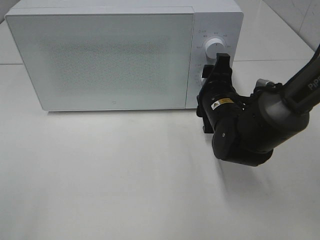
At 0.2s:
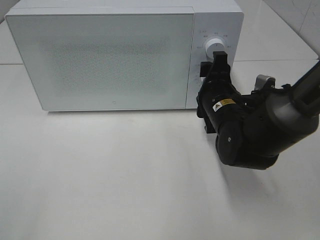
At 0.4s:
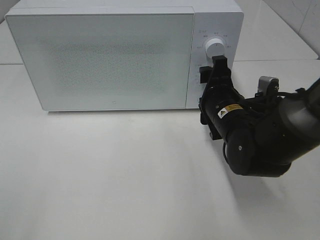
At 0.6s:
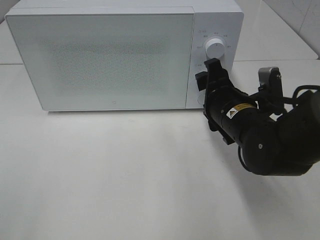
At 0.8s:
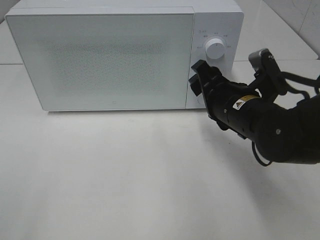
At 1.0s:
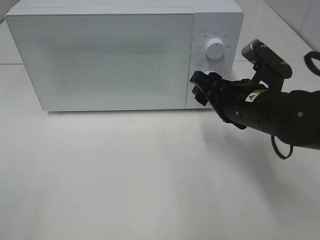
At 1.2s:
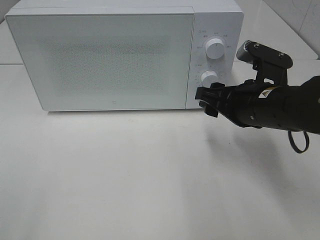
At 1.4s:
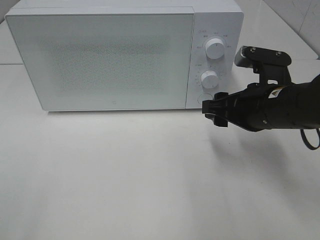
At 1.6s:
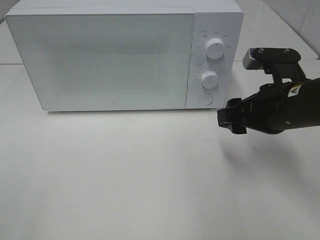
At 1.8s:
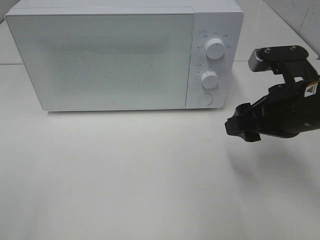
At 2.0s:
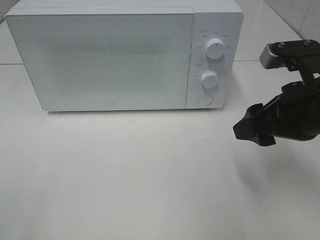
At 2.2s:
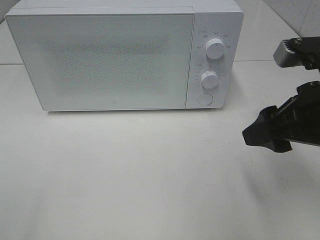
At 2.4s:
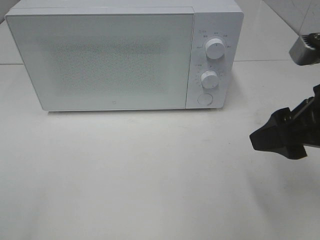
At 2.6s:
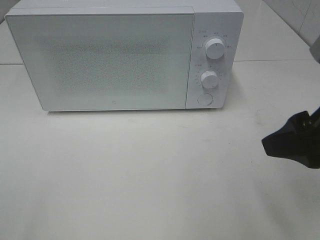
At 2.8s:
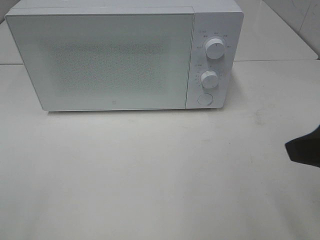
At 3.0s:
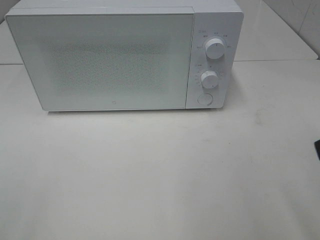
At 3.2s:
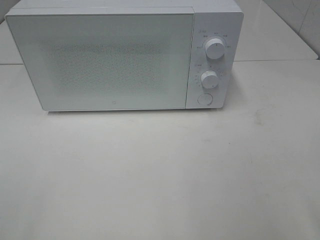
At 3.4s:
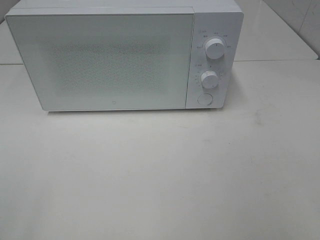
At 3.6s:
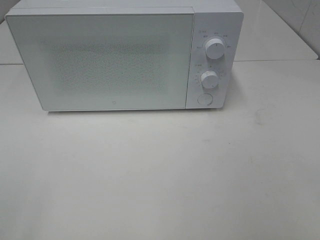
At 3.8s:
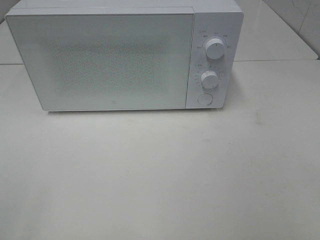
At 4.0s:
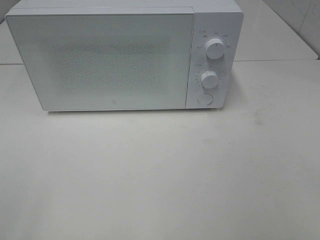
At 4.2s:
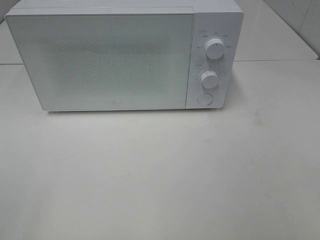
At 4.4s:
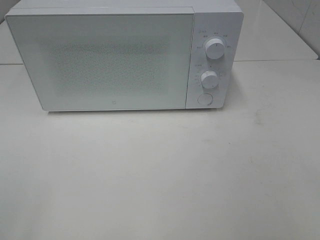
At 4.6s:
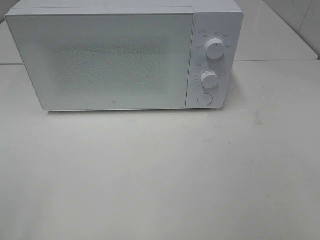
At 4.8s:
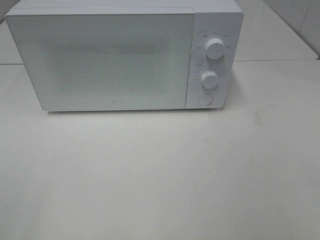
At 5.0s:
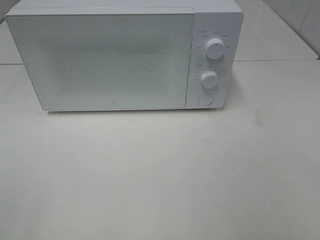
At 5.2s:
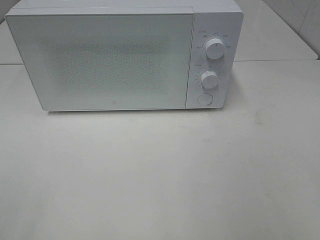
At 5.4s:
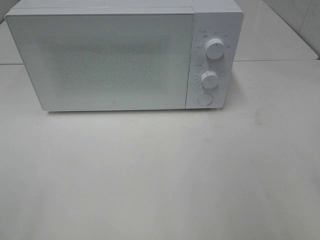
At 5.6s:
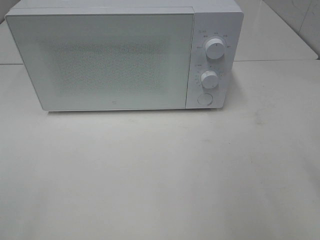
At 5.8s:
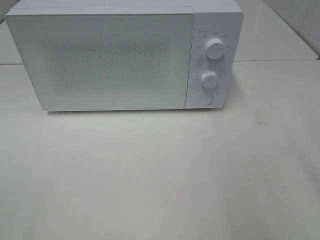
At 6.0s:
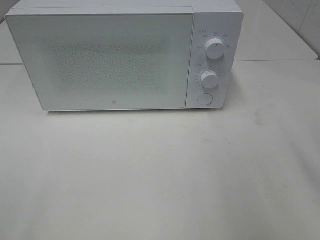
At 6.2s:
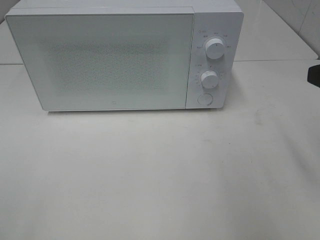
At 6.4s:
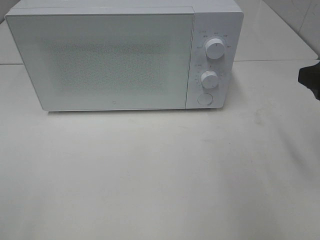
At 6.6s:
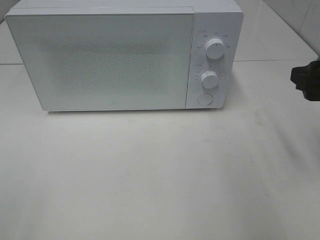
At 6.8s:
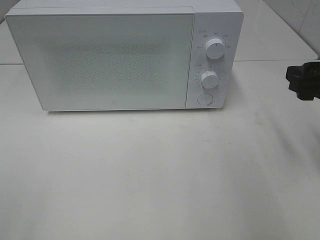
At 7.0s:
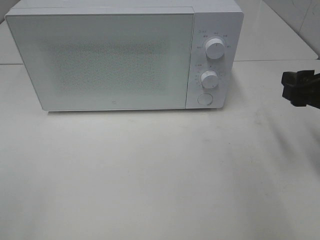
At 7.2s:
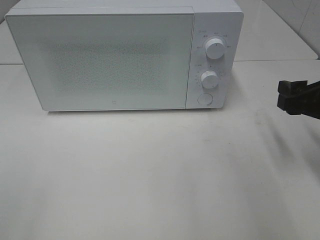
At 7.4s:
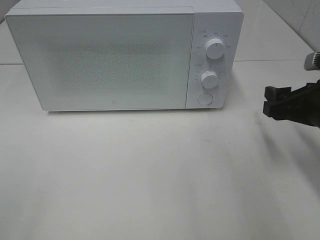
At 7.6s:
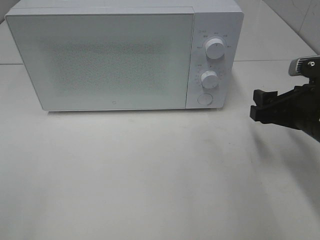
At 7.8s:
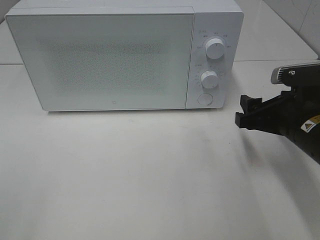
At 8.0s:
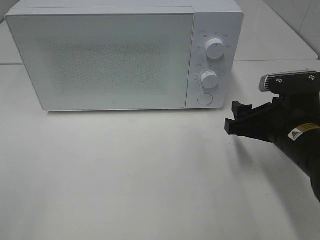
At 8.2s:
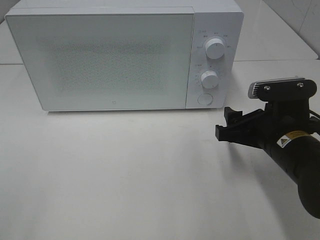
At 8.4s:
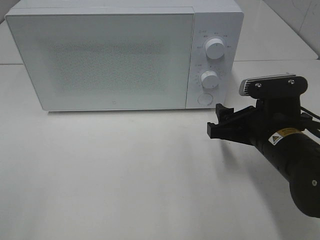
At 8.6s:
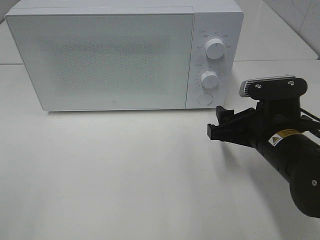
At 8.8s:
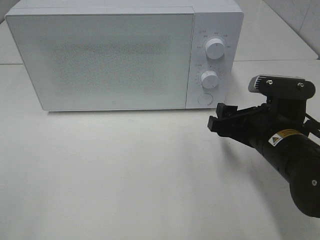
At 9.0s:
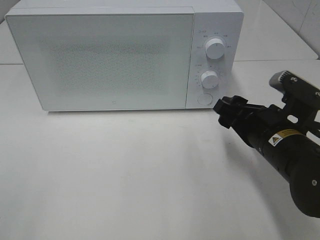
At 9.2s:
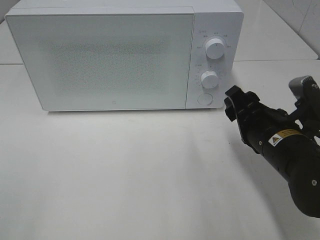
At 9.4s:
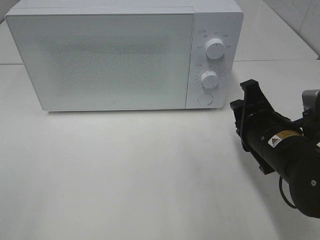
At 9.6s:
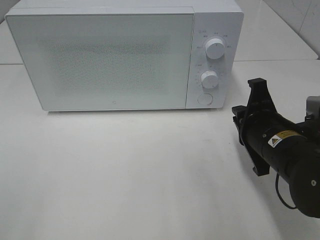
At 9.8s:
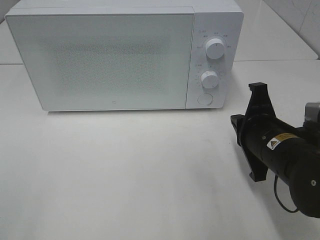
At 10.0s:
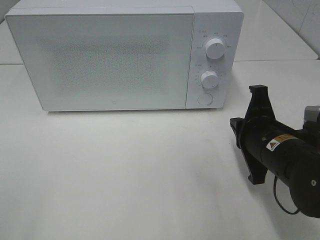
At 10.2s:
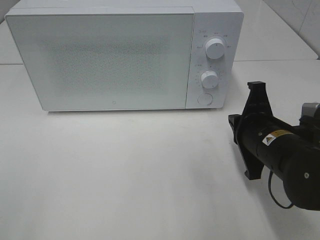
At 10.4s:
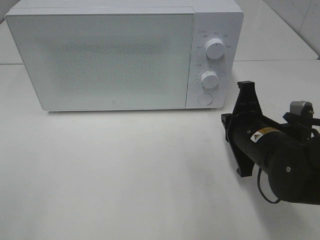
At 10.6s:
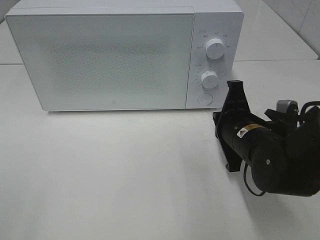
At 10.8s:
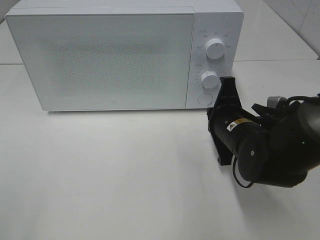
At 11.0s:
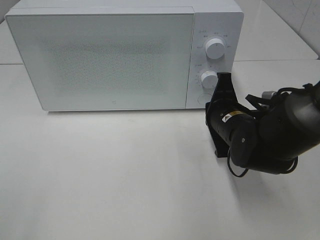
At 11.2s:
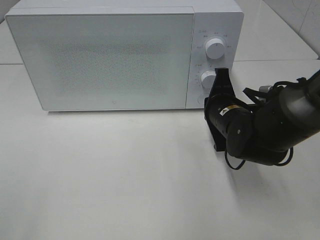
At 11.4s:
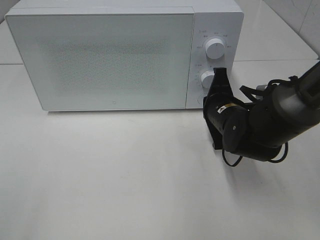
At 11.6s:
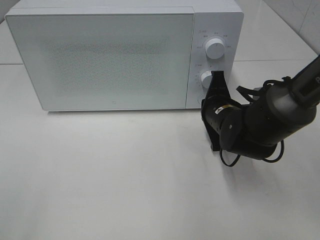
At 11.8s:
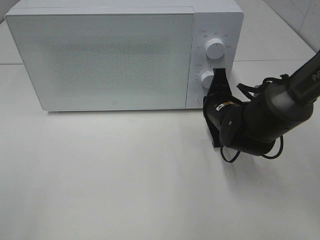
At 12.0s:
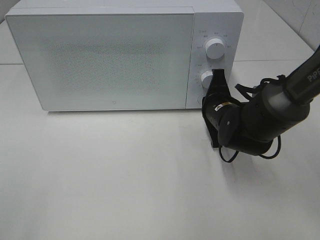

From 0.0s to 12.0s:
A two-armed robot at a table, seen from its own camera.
Task of the whole recording: Heat the burger.
From 0.0s to 1.6s: The right gripper moves backward, to the right and upward, about 10 cm.
From 1.6s to 3.0s: The right gripper shifts some 20 cm backward and upward.
From 6.0s to 7.6s: The right gripper goes about 15 cm downward and forward.
From 7.6s to 9.0s: The right gripper is displaced to the left by roughly 5 cm.
From 9.0s to 10.4s: The right gripper closes its fingers.
From 10.4s to 12.0s: The right gripper is displaced forward by approximately 10 cm.

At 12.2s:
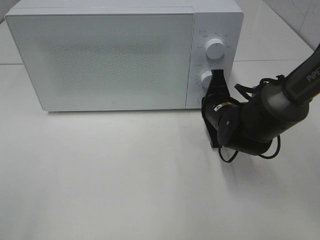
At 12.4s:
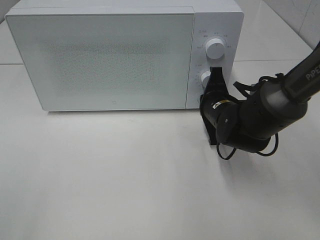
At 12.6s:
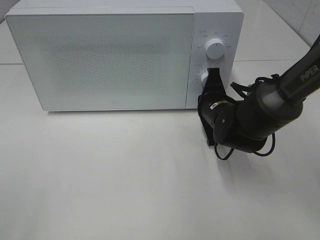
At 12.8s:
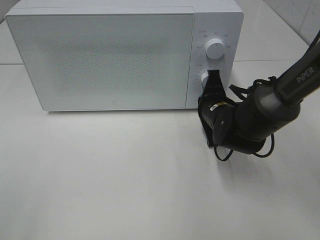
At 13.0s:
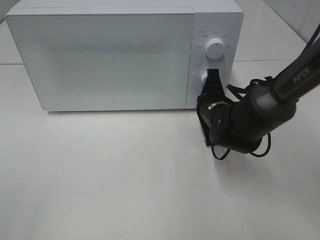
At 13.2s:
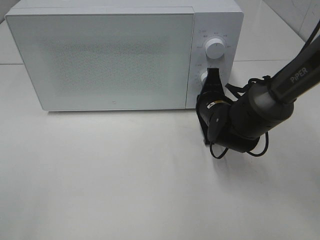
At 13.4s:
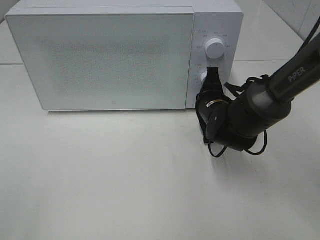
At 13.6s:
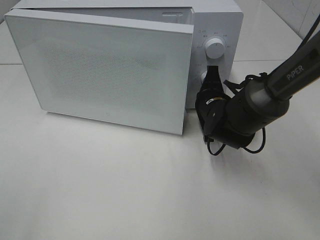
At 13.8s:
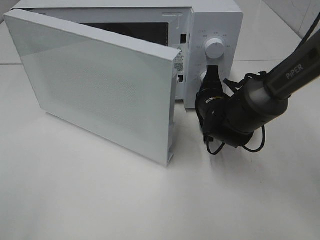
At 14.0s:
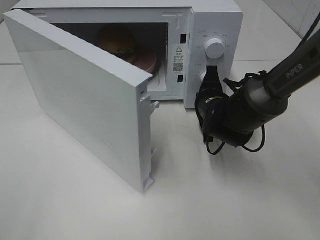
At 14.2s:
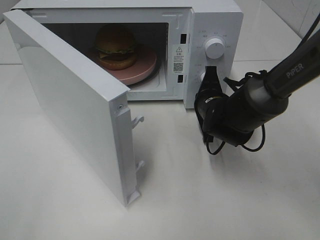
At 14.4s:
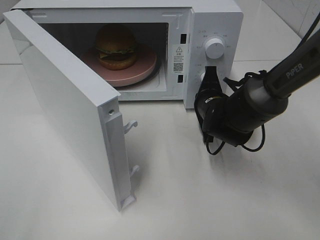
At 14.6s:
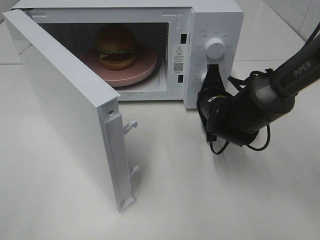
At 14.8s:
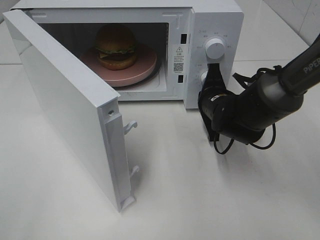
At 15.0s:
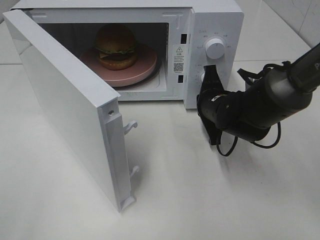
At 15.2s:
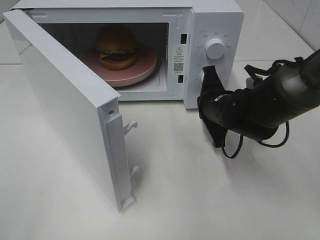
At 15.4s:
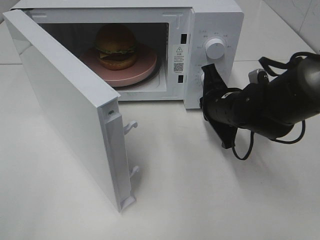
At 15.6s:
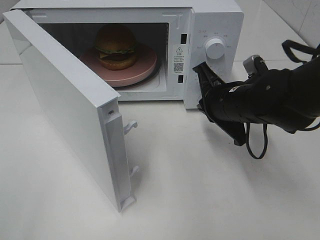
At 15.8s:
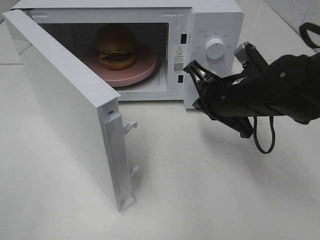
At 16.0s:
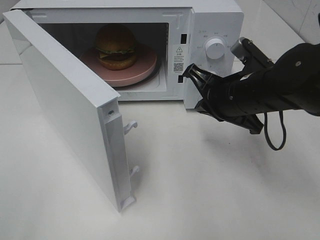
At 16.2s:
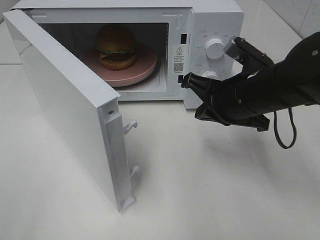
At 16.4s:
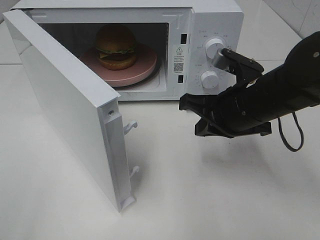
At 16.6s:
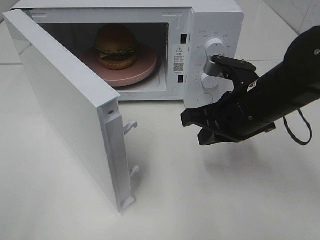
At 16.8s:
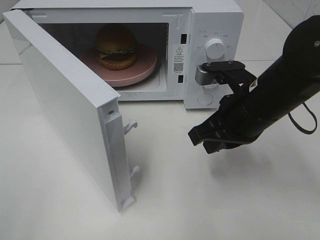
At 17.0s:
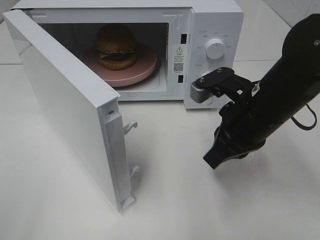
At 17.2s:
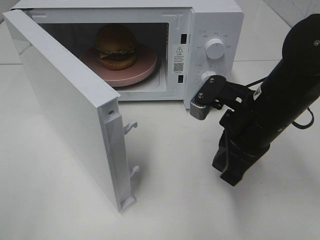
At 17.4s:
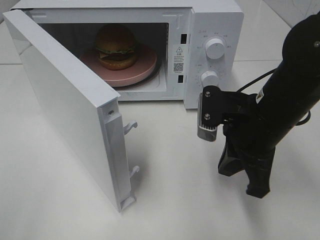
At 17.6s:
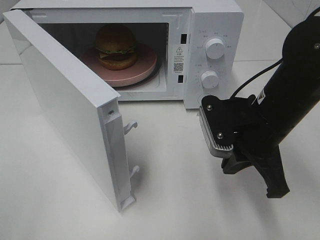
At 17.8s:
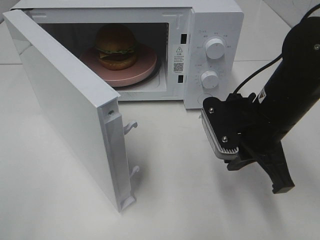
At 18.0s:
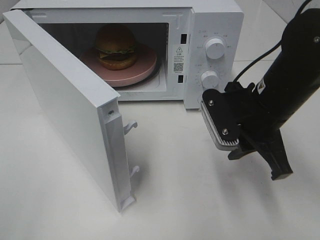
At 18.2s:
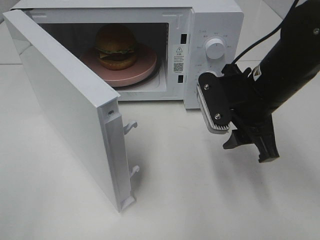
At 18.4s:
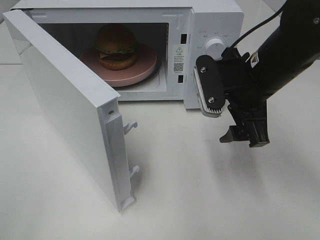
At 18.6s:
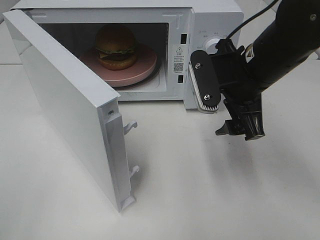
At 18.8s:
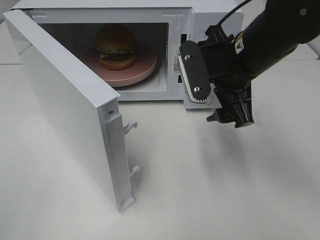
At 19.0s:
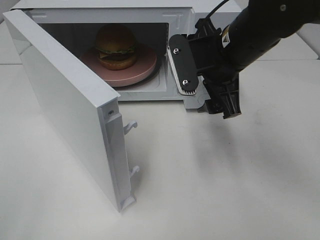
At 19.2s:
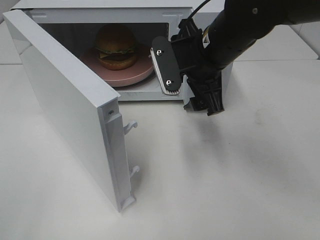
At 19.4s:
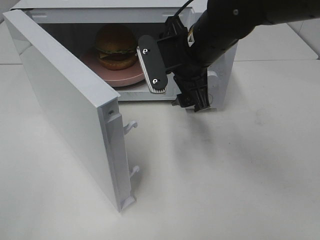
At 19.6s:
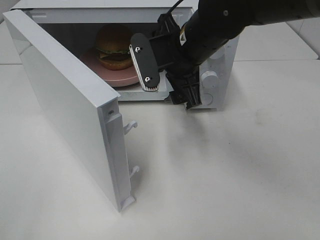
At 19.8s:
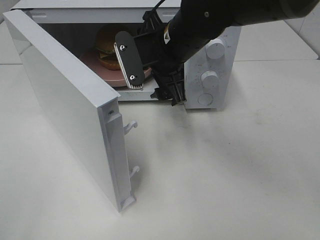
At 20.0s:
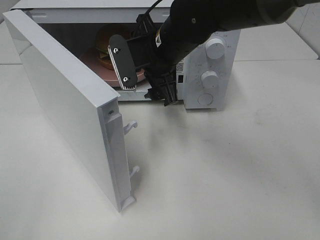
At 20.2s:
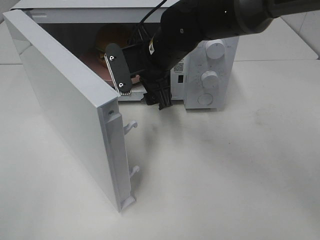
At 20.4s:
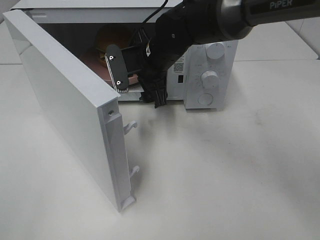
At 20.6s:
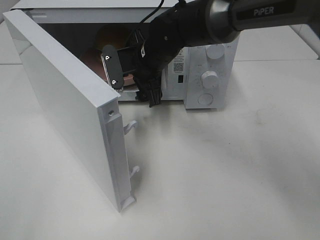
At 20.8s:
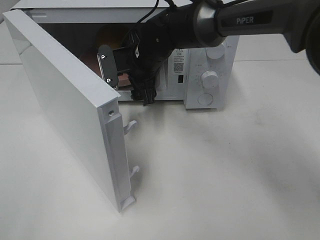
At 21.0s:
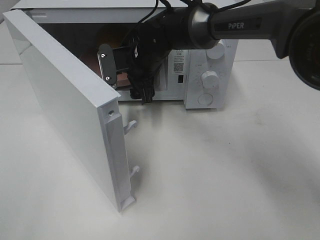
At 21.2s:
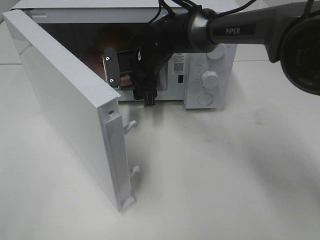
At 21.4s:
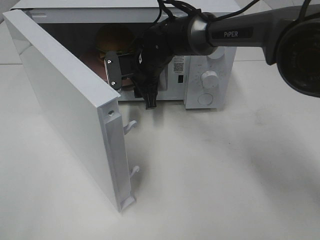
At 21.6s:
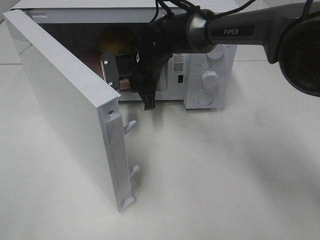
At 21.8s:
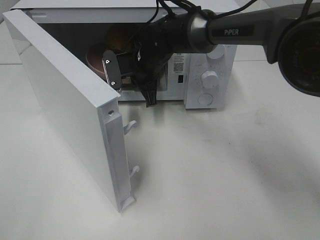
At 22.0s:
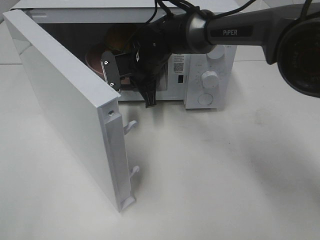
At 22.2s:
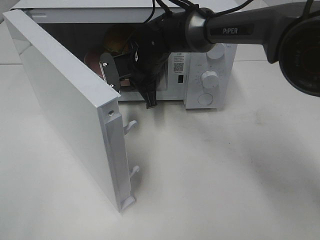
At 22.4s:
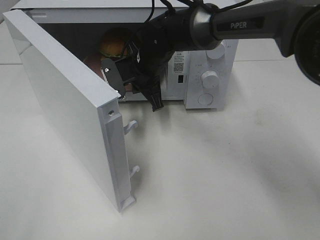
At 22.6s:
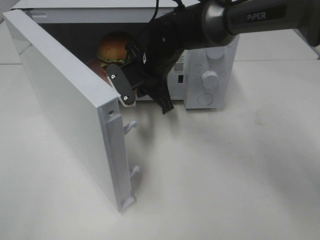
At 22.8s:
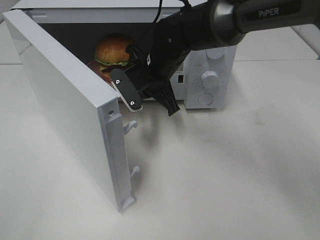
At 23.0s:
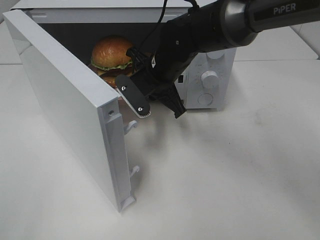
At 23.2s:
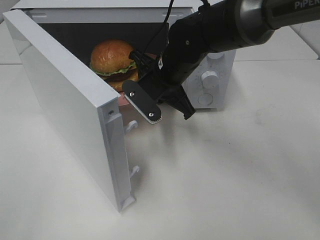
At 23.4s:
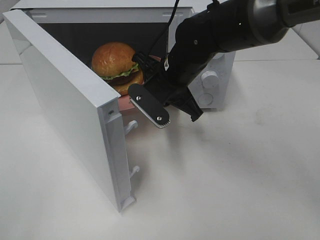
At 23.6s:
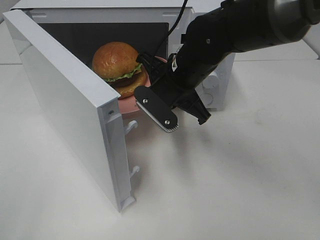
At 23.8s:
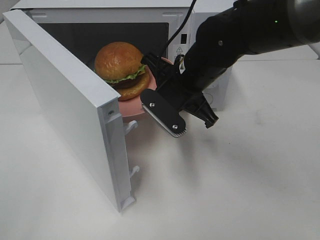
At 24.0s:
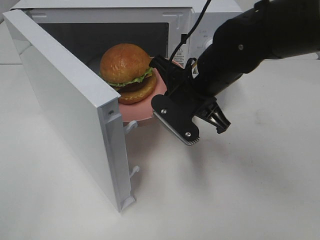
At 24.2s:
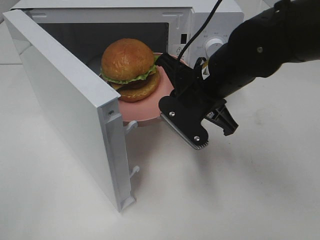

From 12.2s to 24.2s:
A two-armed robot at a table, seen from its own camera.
Task of the whole recording: Heat the burger.
Step, from 12.2s to 15.2s: Right hand: press the switch.
Step, from 15.4s to 21.6s: Right hand: grab the plate with the hamburger.
From 15.2s to 16.6s: The right gripper is displaced upward and backward by roughly 10 cm.
From 16.6s to 18.2s: The right gripper opens.
From 18.2s to 19.8s: The right gripper travels to the left and forward by some 15 cm.
From 19.8s to 21.2s: The right gripper moves forward and downward, some 15 cm.
From 21.2s to 22.6s: The right gripper closes its fingers.
From 22.6s to 24.2s: The right gripper moves backward and to the right, about 15 cm.
